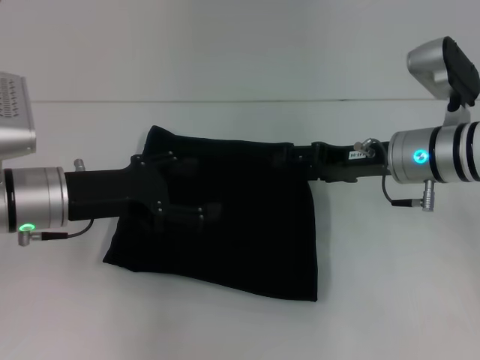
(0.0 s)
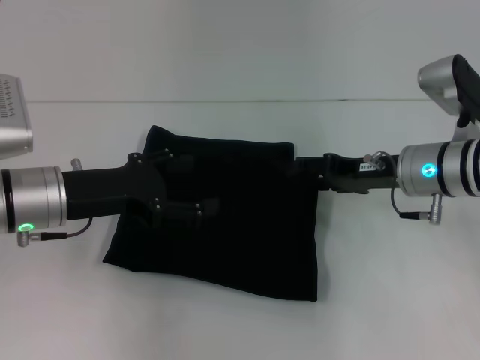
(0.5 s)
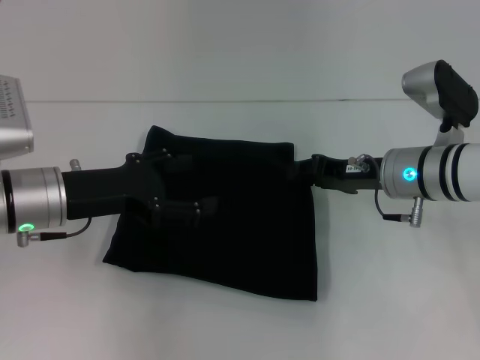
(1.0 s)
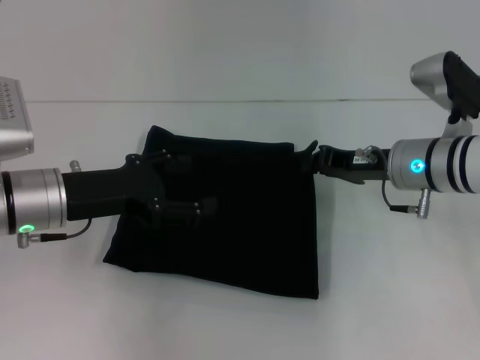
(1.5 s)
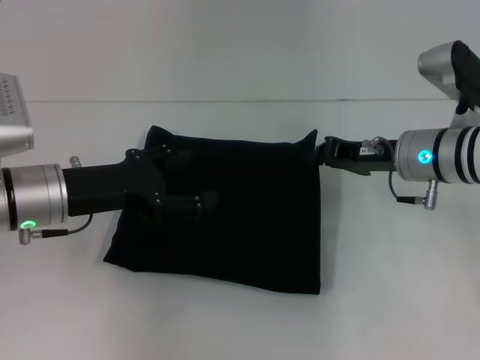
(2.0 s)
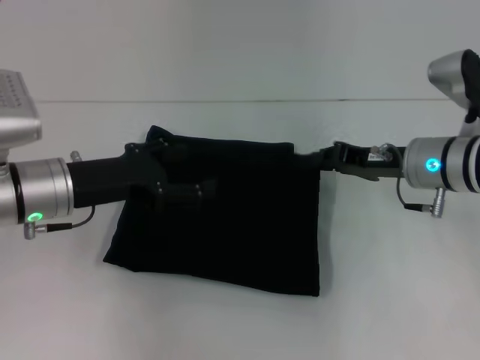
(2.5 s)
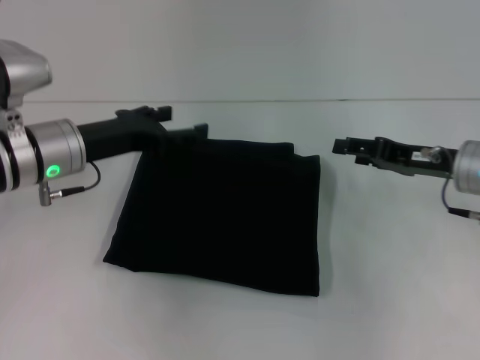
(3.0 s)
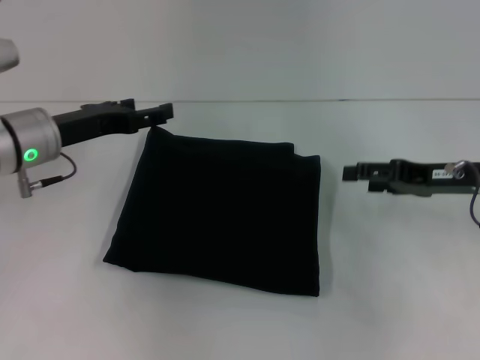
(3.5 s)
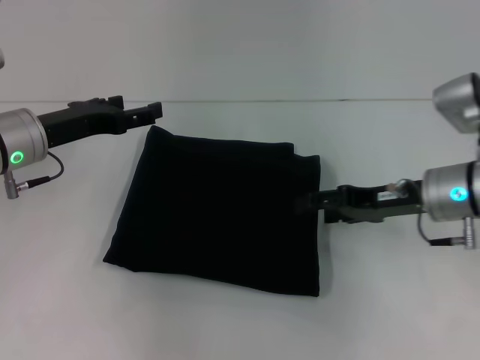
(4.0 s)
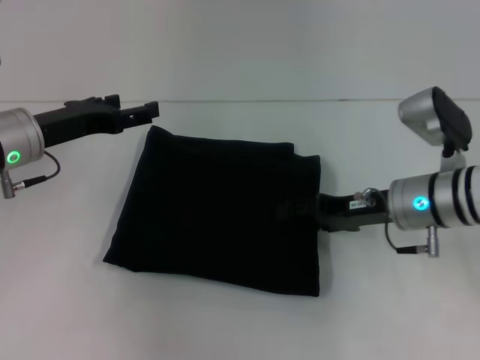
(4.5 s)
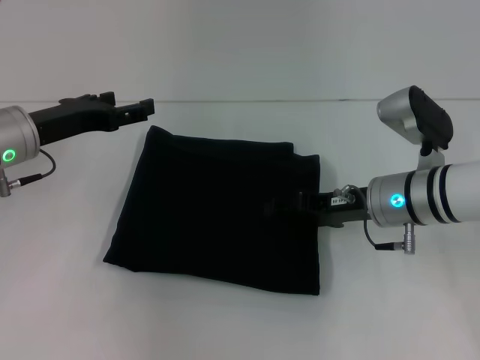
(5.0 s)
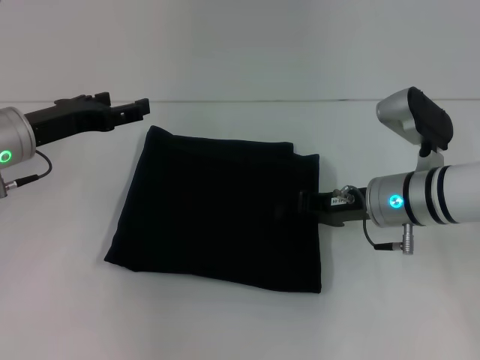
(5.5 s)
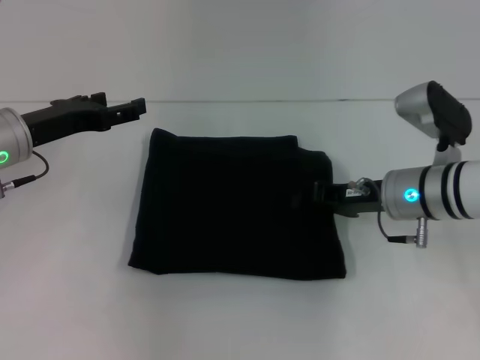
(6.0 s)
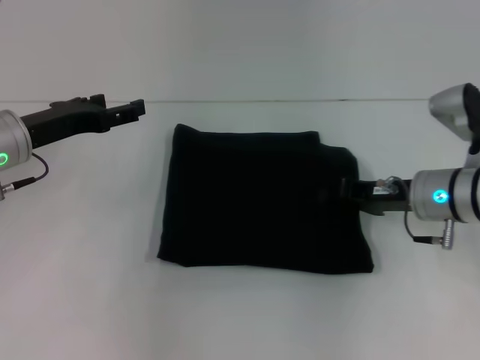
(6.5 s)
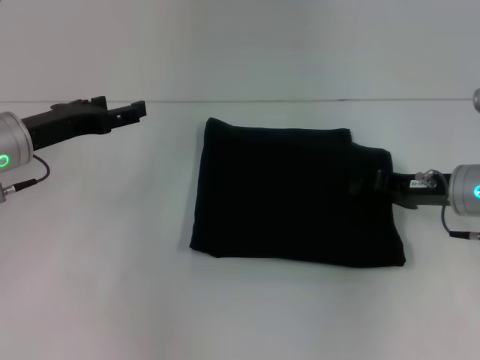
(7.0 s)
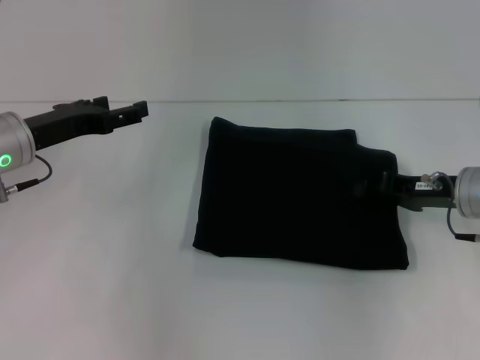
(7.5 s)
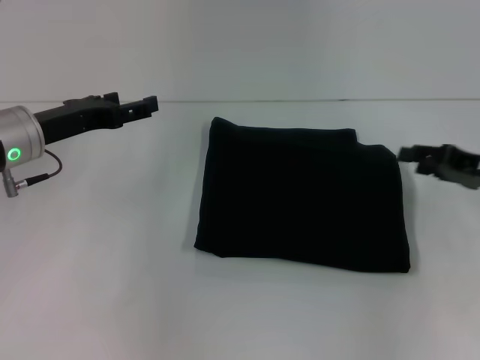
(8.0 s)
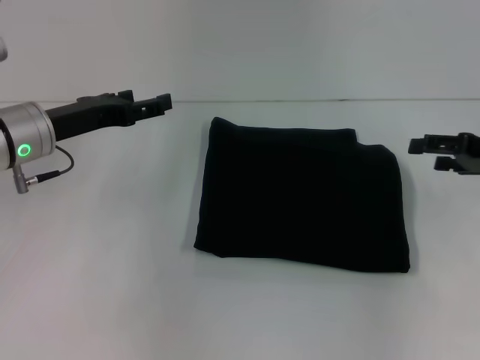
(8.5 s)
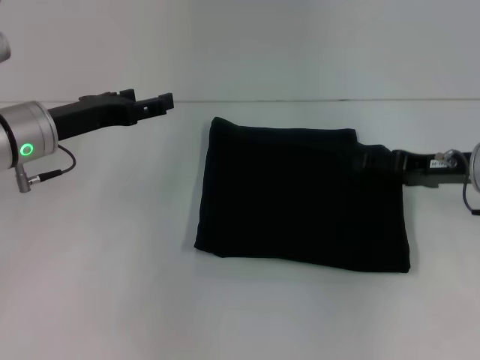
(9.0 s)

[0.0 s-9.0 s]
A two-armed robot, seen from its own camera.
0.0 to 2.0 s: The right gripper closes.
2.0 to 4.5 s: The right gripper reaches roughly 10 cm to the right, then returns, and opens up; the left gripper moves about 5 cm.
4.5 to 7.0 s: The right gripper goes approximately 5 cm to the right, and closes its fingers.
7.0 to 9.0 s: The right gripper travels to the right and back again, roughly 10 cm each way, and opens its fingers.

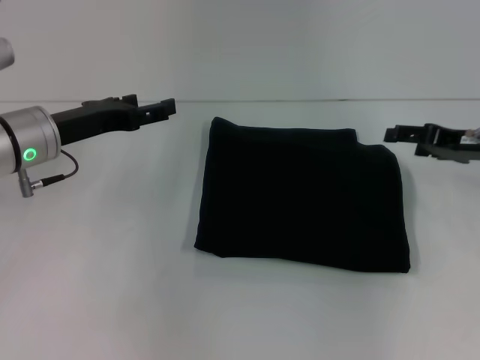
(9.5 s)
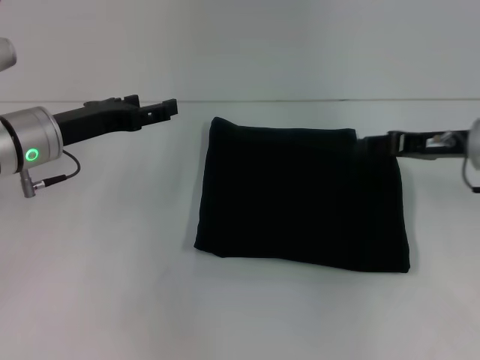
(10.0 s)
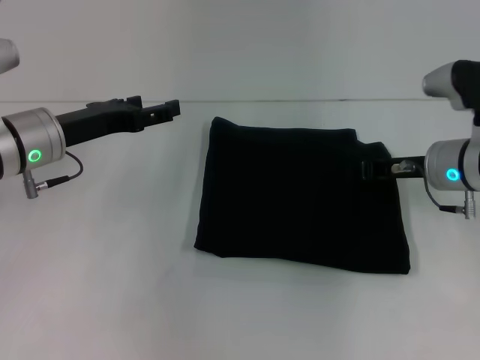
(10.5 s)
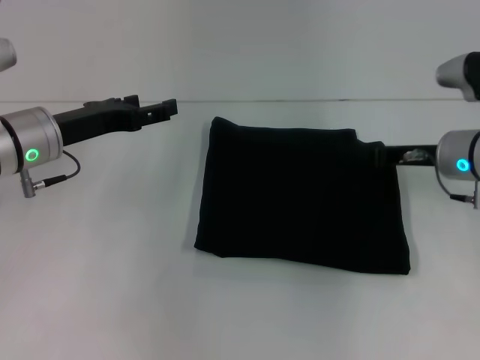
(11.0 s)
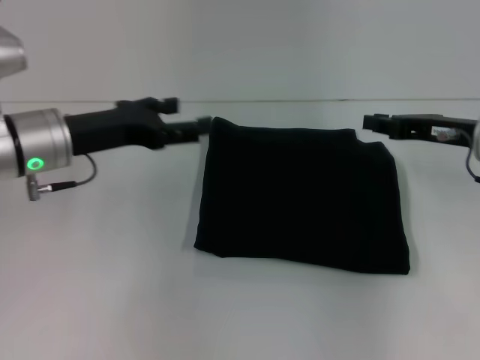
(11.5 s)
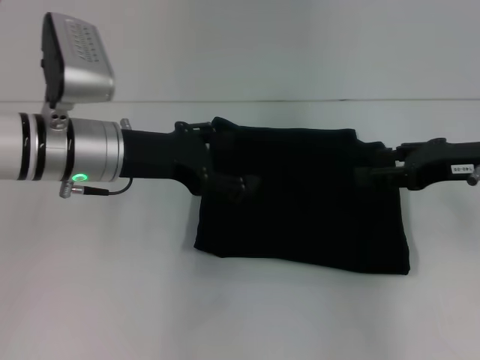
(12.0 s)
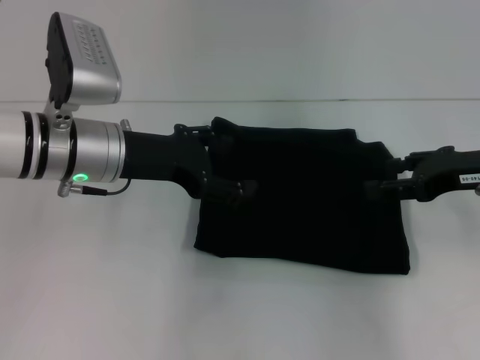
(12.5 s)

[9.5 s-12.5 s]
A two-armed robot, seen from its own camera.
9.5 to 11.0 s: The right gripper moves to the left, approximately 5 cm, and closes its fingers.
11.0 to 12.5 s: The right gripper shifts approximately 10 cm upward and backward, and opens up; the left gripper shifts roughly 5 cm to the right.

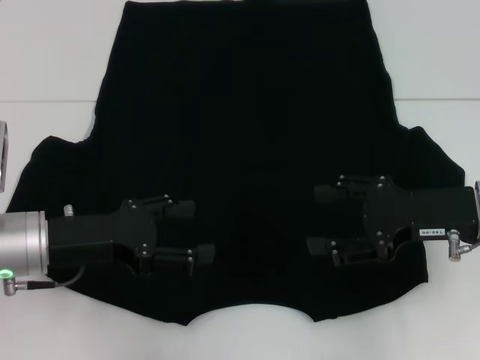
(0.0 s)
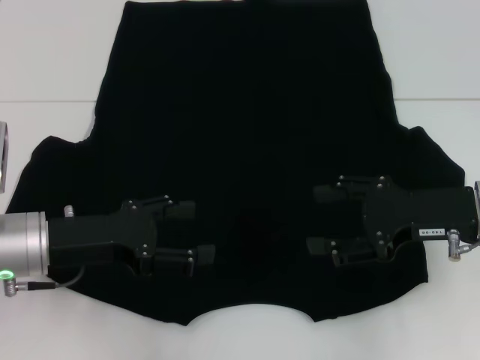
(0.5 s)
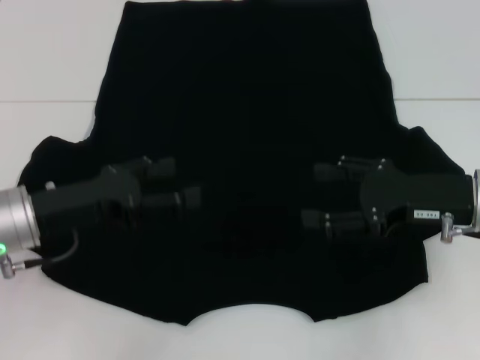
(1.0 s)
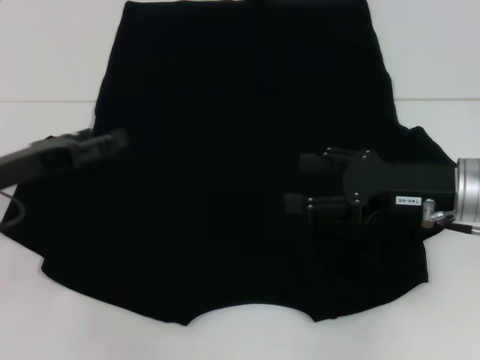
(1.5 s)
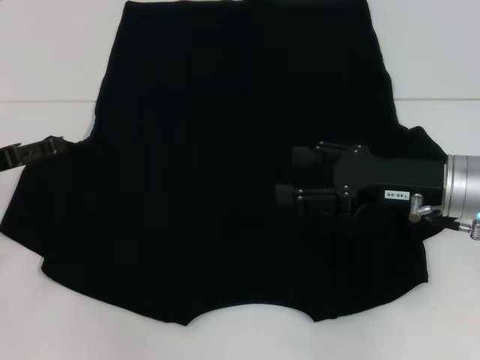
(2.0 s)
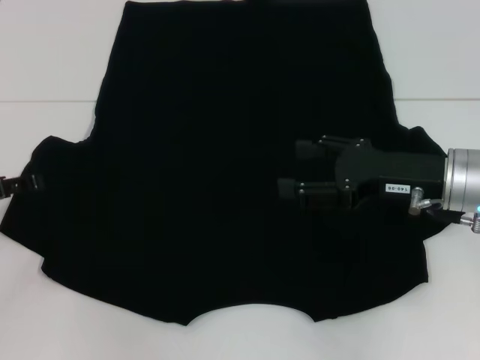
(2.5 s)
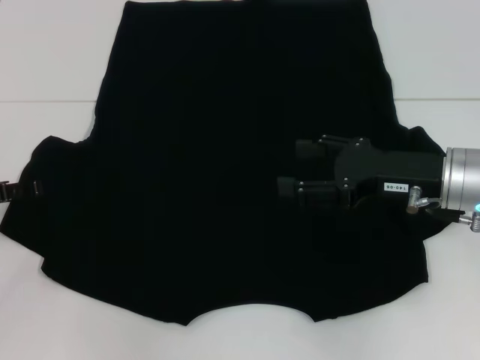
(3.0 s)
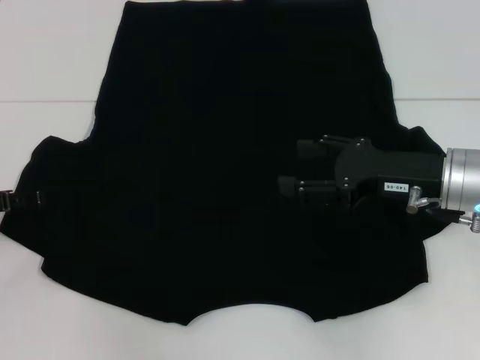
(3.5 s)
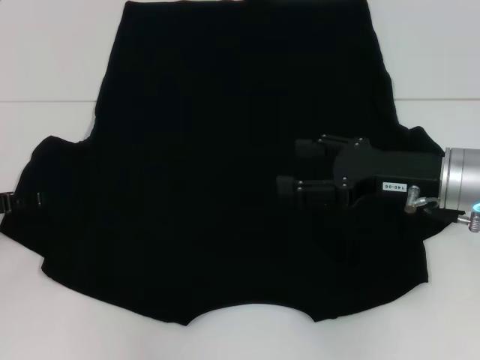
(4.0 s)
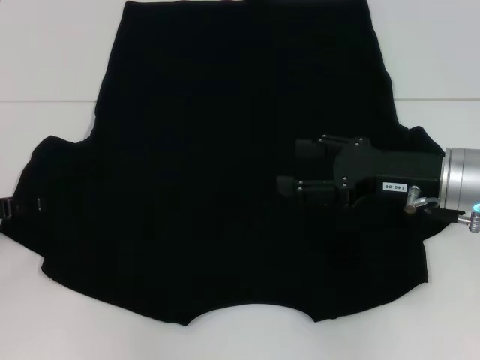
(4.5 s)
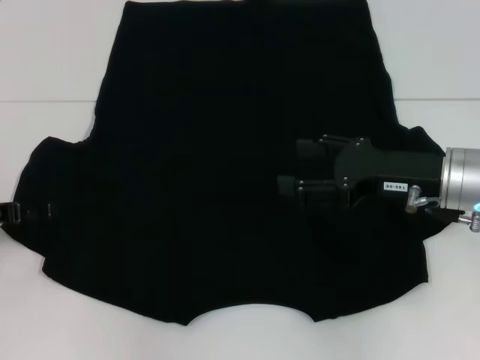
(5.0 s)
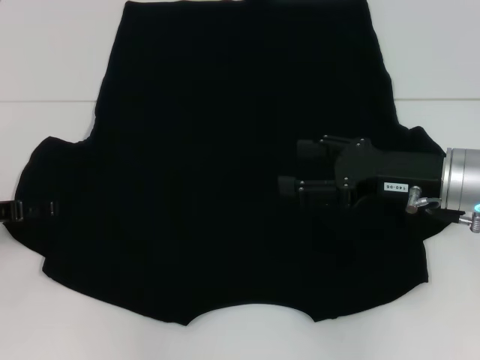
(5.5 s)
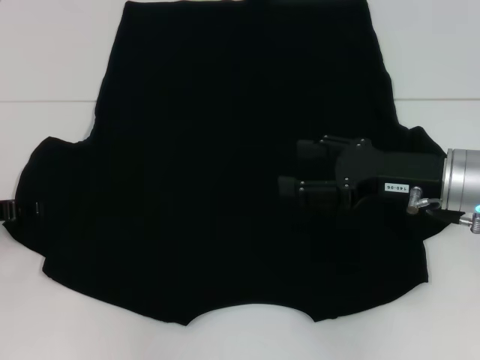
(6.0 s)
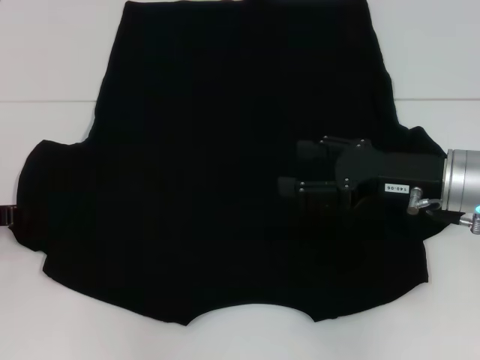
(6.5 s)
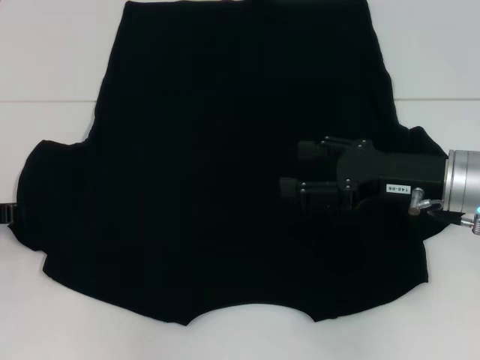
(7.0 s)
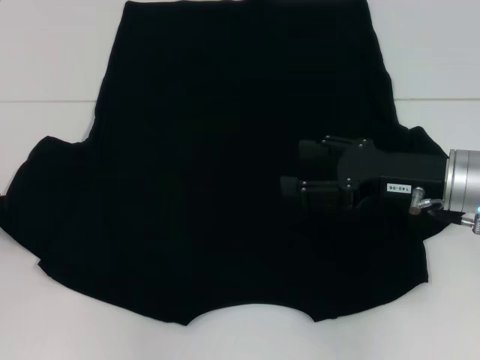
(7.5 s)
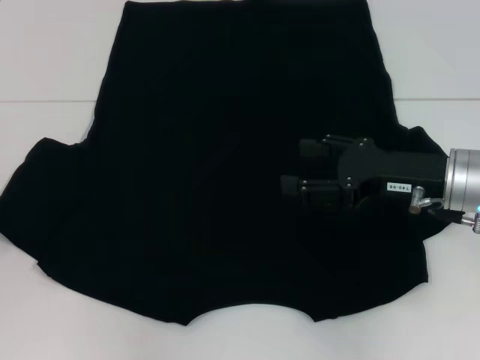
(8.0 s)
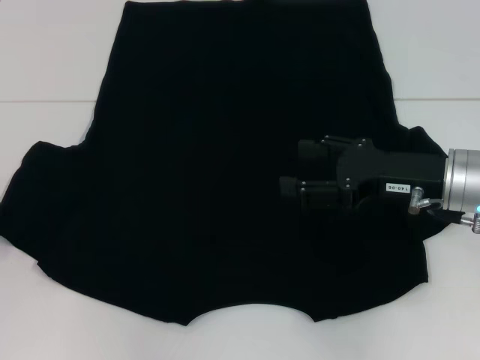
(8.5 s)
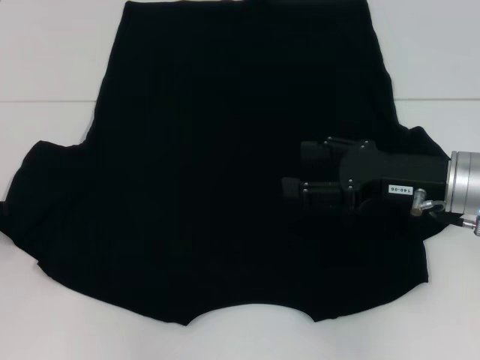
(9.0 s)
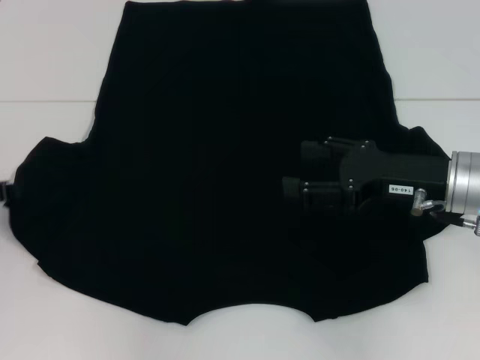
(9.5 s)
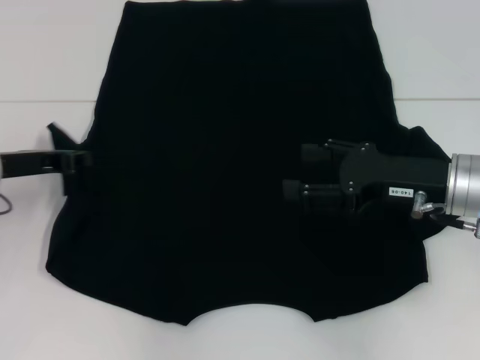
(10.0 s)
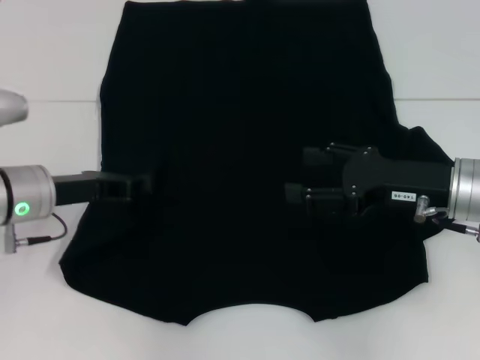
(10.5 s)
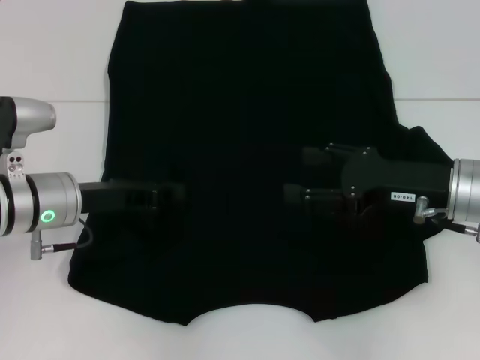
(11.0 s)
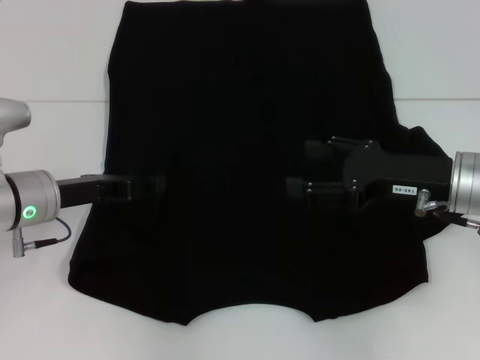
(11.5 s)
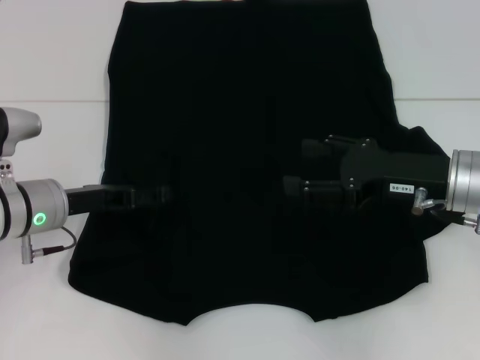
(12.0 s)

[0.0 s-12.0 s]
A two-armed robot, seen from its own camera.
0.0 to 2.0 s: The left gripper moves to the left, about 10 cm.
2.0 to 4.0 s: The grippers move only a little.
4.0 to 6.0 s: The two grippers keep their place.
6.0 to 8.0 s: The left gripper closes.
8.0 to 10.0 s: The left gripper is displaced to the right by roughly 5 cm.
10.0 to 12.0 s: The left gripper goes about 5 cm to the right and downward, and opens its fingers.

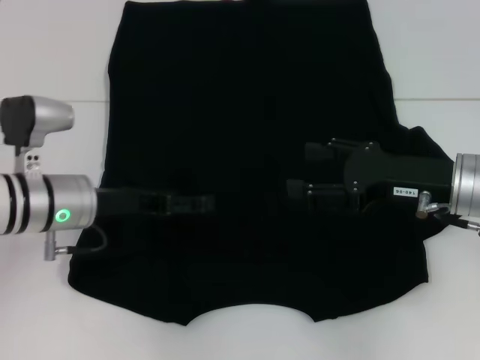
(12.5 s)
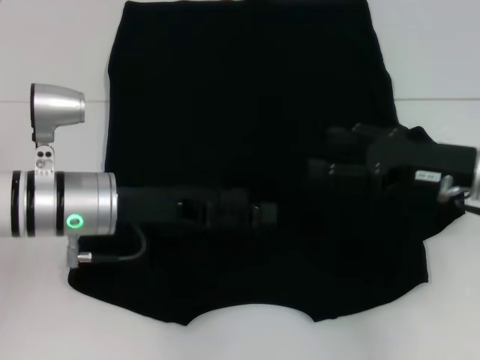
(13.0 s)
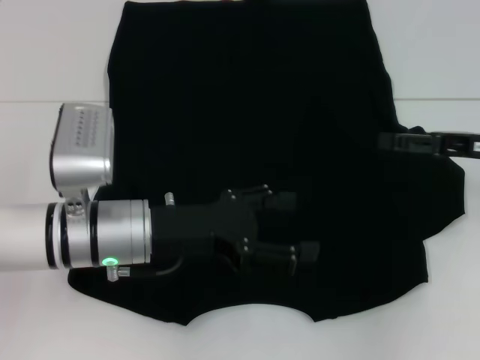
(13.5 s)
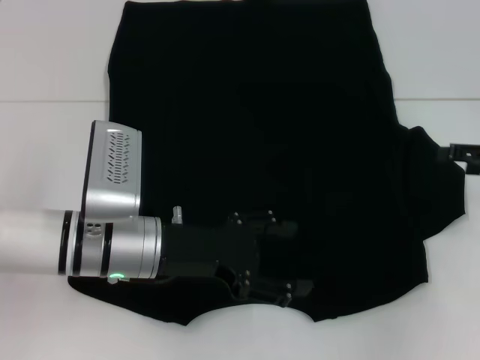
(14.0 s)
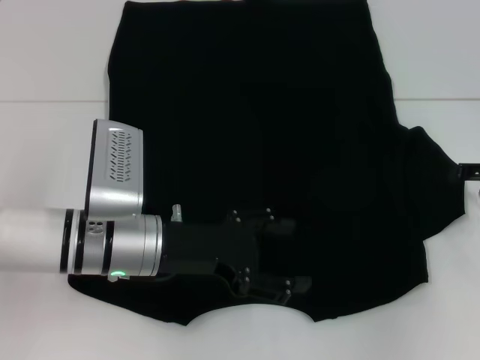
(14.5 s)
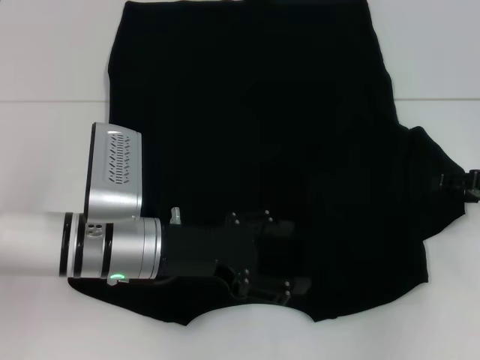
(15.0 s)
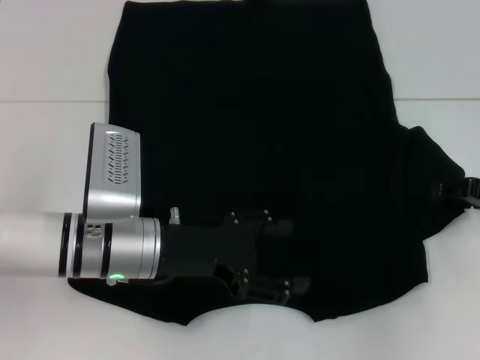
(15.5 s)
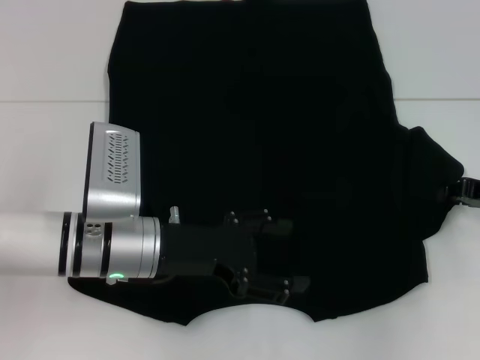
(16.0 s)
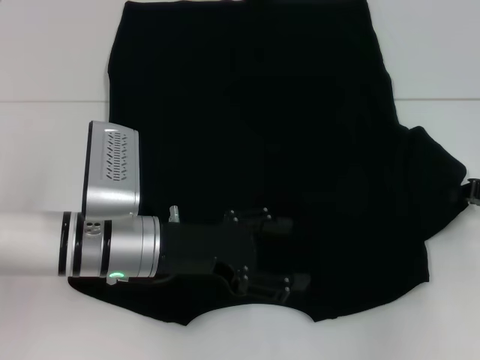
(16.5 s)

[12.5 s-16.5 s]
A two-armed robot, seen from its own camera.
12.5 to 14.5 s: The right gripper moves to the right, some 15 cm. The left gripper shifts about 5 cm to the right.
14.5 to 16.5 s: The right gripper closes its fingers.
